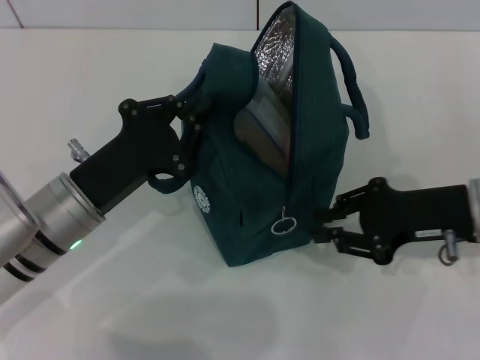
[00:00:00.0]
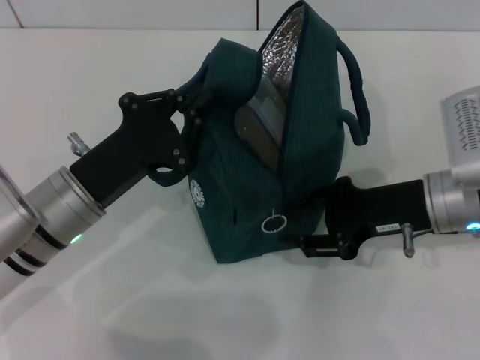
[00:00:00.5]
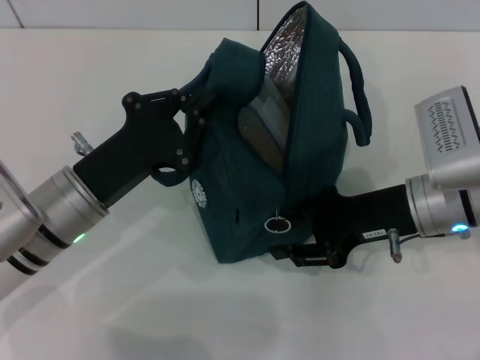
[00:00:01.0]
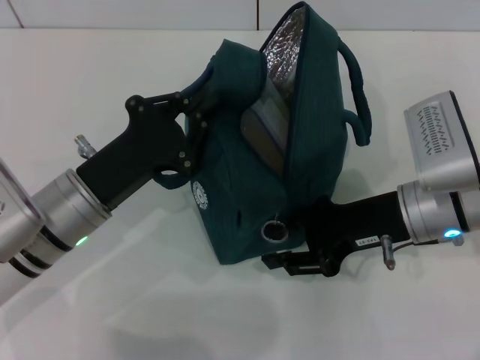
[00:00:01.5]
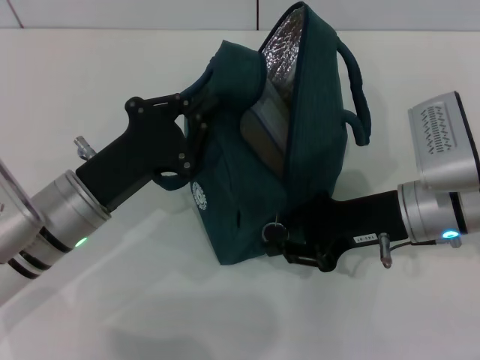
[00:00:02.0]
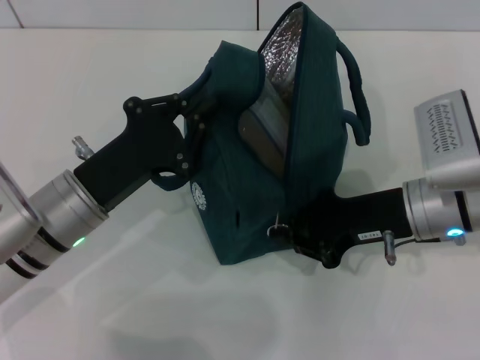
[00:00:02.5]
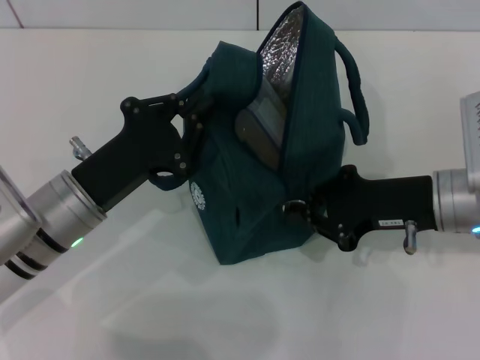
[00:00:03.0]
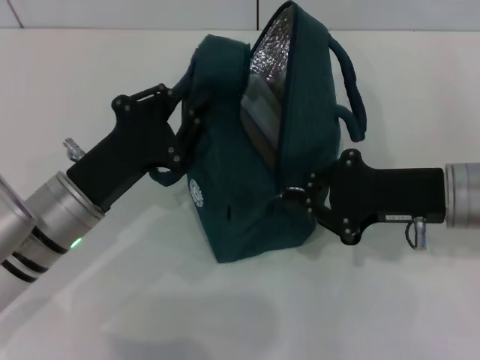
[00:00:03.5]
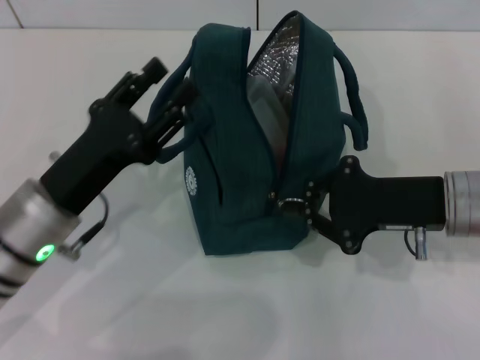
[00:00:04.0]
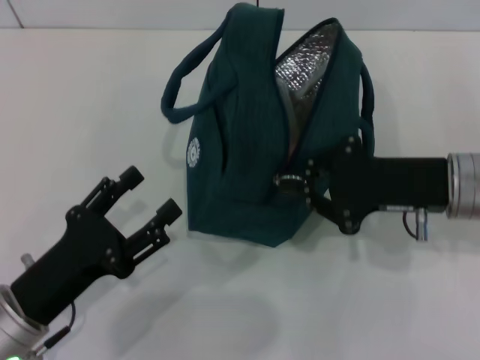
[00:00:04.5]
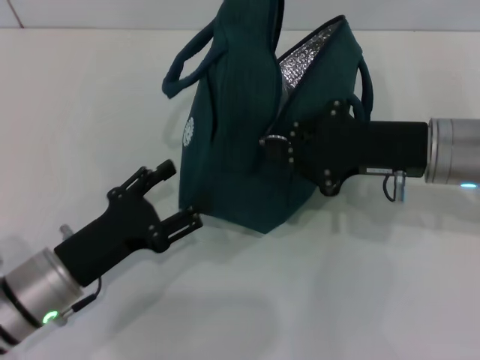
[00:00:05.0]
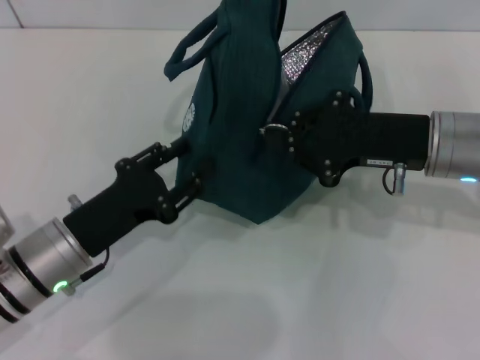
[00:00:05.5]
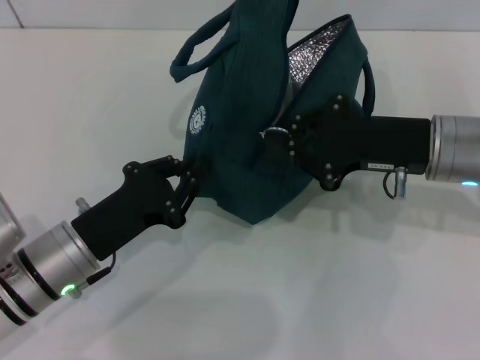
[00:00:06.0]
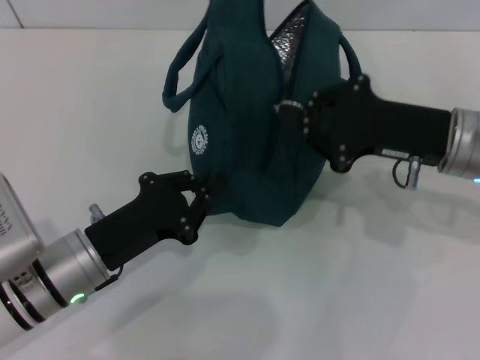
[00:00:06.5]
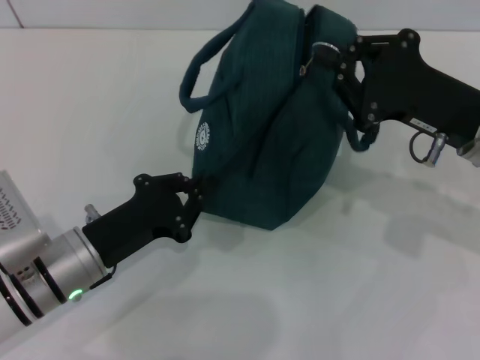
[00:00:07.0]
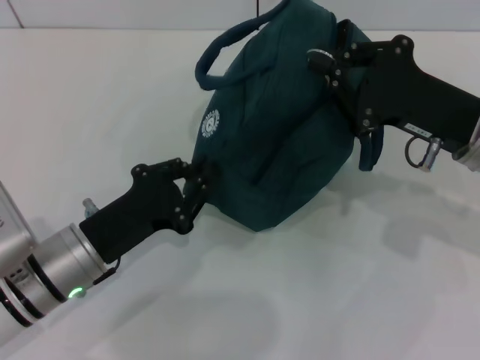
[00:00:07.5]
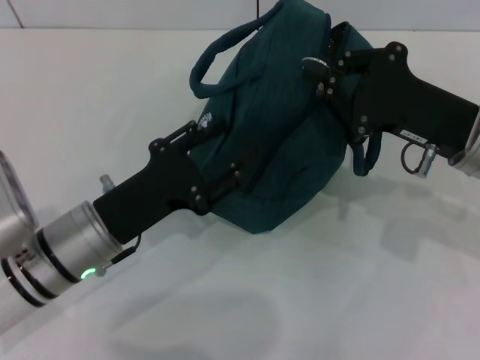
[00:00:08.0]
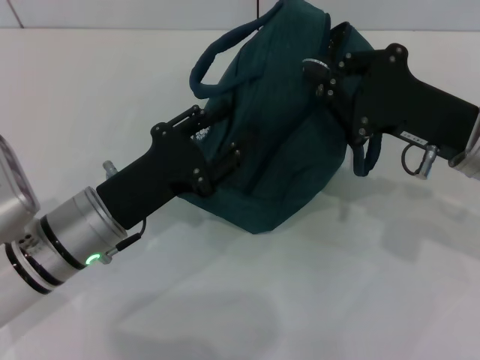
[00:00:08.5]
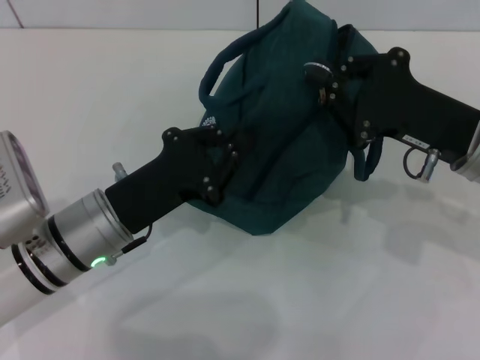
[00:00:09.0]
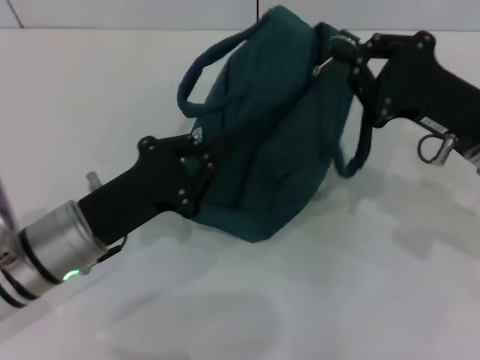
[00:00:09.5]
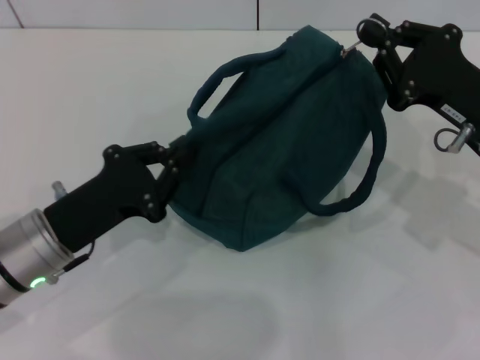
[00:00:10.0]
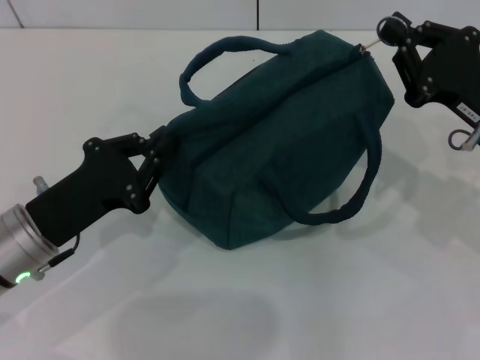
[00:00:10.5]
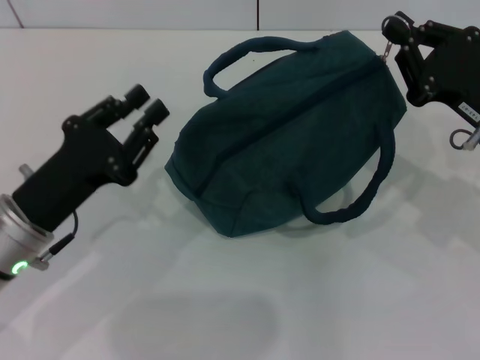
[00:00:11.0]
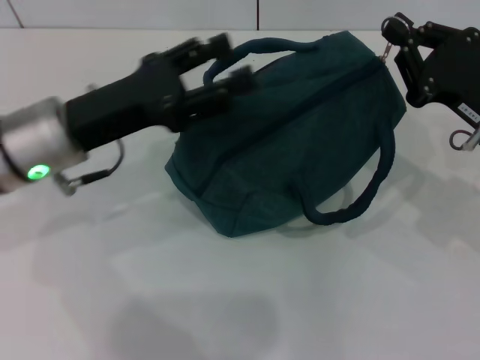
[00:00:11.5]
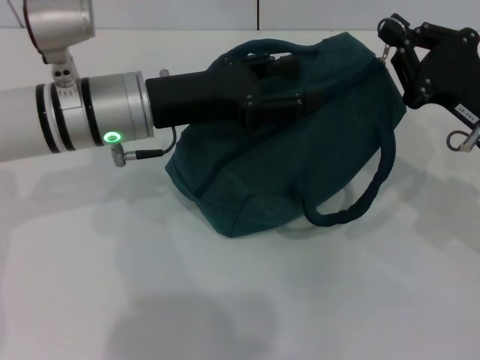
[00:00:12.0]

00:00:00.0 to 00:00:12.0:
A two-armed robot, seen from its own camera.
Step, 00:00:00.0 to 00:00:03.5: Hold the lunch bag with your left hand.
00:00:00.0 to 00:00:02.0: The right gripper moves to the left, some 5 cm, and opens its fingers.
00:00:02.0 to 00:00:04.0: The right gripper closes, while the left gripper opens its fingers.
00:00:04.0 to 00:00:06.0: The left gripper moves some 10 cm backward and comes back, and closes.
00:00:08.0 to 00:00:10.0: The left gripper closes.
00:00:10.0 to 00:00:12.0: The left gripper moves forward, upward and to the right, roughly 15 cm, and opens.

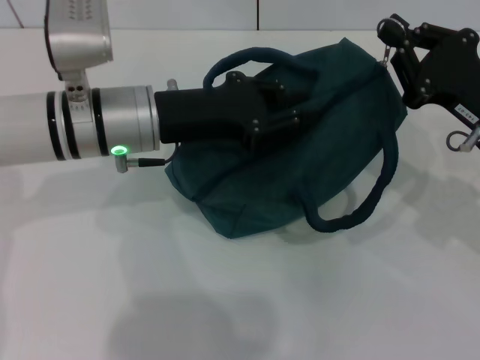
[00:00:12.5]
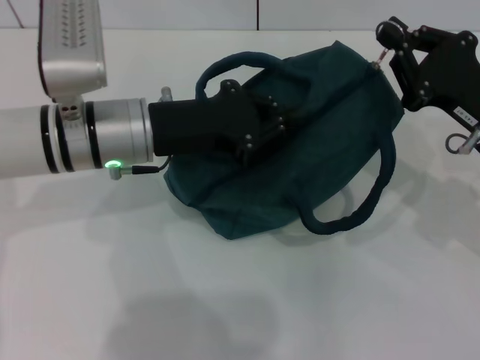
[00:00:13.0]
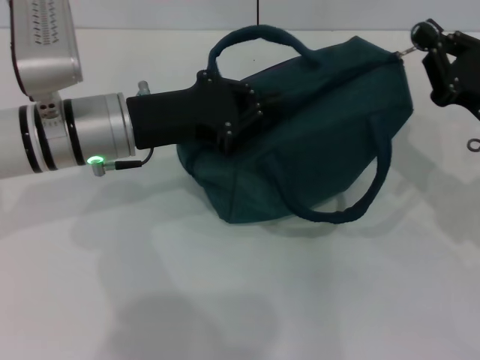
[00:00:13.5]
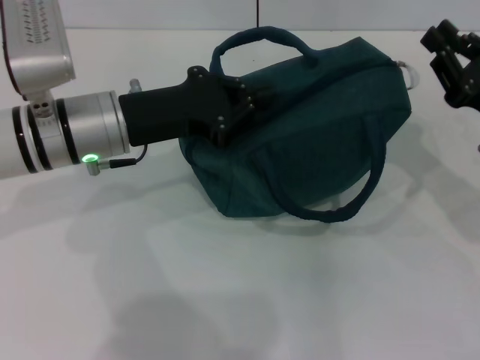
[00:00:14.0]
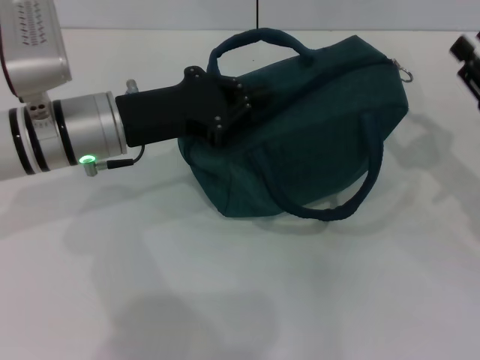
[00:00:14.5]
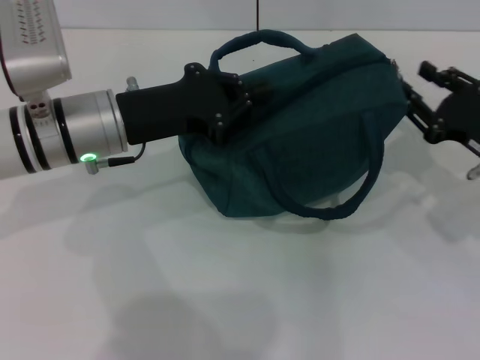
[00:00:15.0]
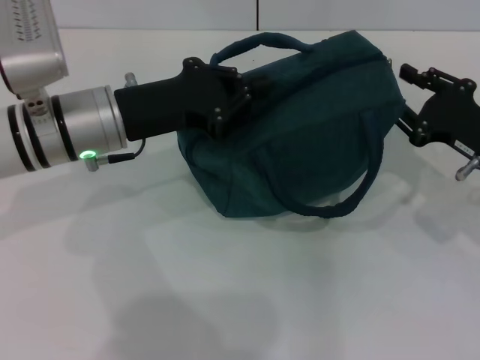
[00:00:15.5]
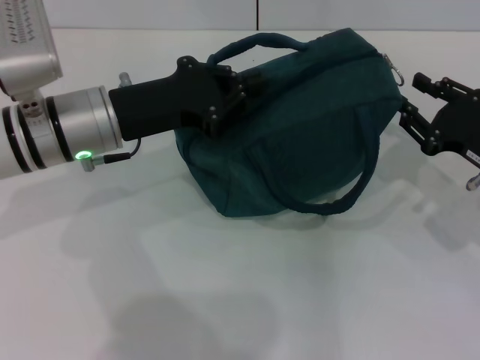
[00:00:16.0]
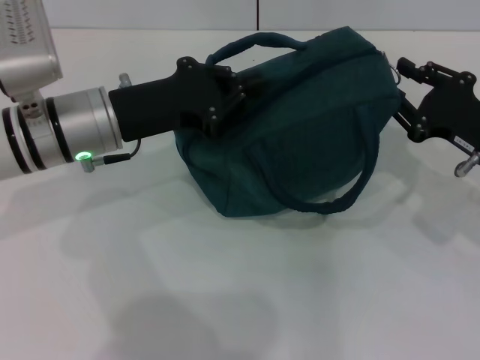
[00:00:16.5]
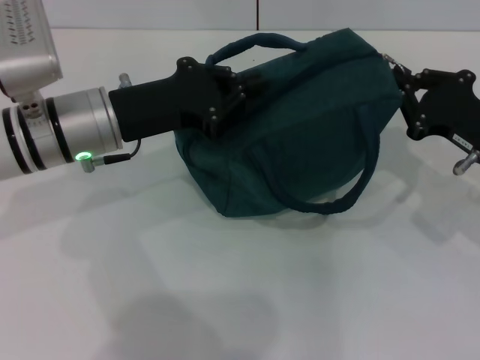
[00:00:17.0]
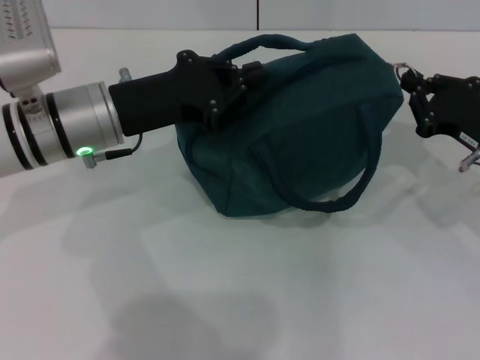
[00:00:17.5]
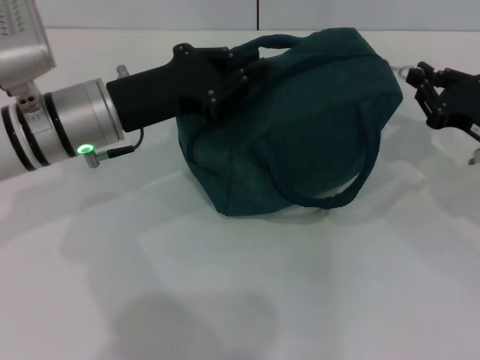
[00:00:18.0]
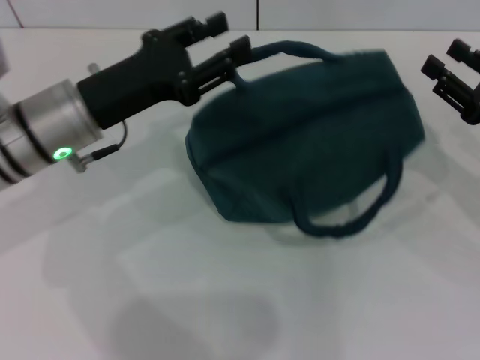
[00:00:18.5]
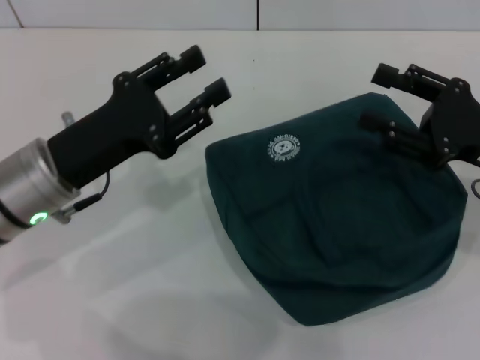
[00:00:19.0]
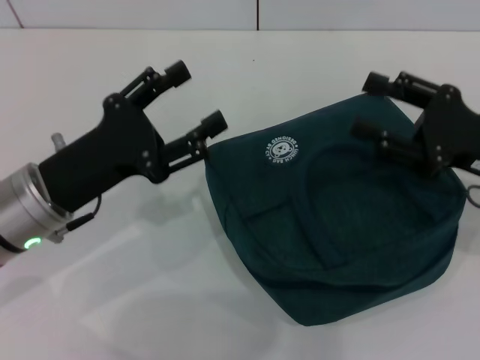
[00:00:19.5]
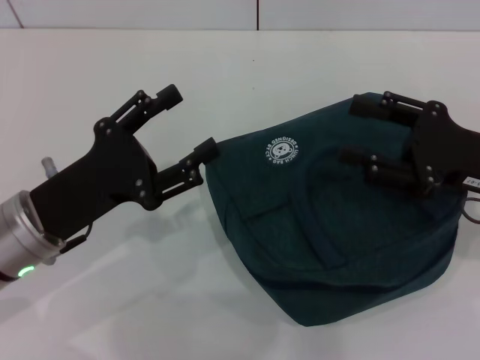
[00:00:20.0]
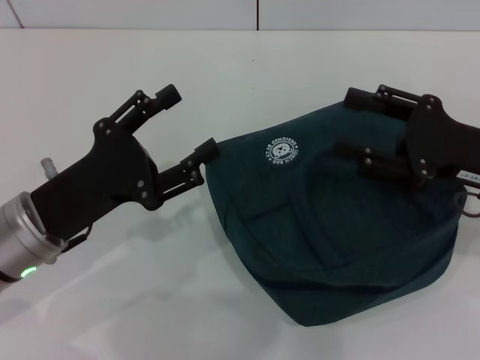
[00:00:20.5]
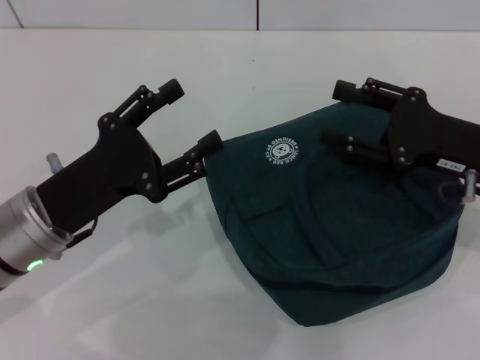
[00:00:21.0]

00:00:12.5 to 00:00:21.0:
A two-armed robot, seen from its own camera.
Step, 00:00:12.5 to 00:00:18.0: Zip up the lunch bag with your right hand.
00:00:12.5 to 00:00:14.5: The left gripper closes its fingers. Meanwhile the right gripper heads to the right, covering roughly 5 cm, and opens.
00:00:16.5 to 00:00:19.0: The left gripper goes about 5 cm backward, and opens up. The right gripper closes, then opens again.
00:00:19.0 to 00:00:21.0: The grippers move only a little.
